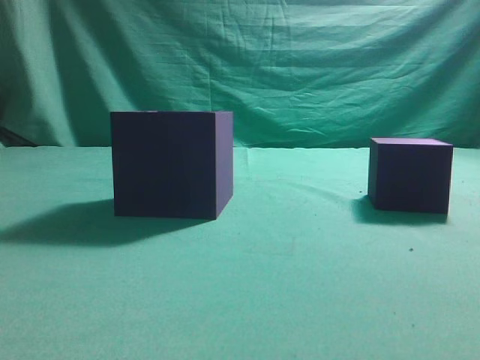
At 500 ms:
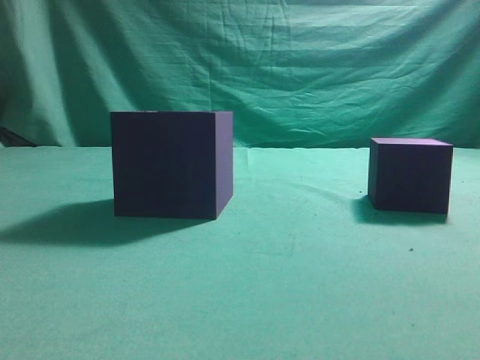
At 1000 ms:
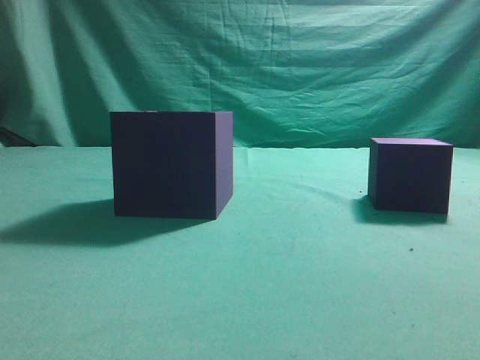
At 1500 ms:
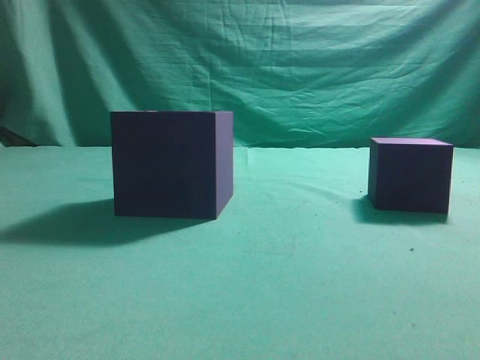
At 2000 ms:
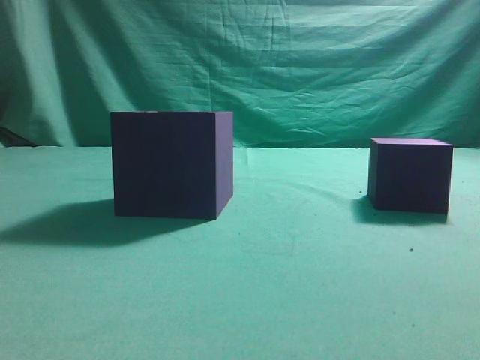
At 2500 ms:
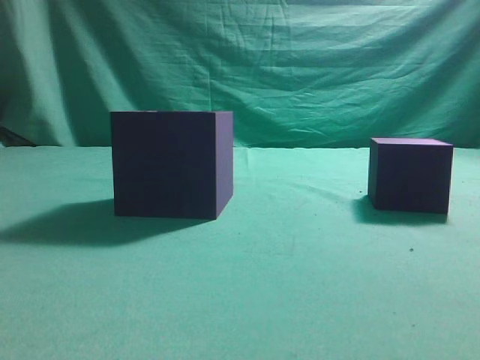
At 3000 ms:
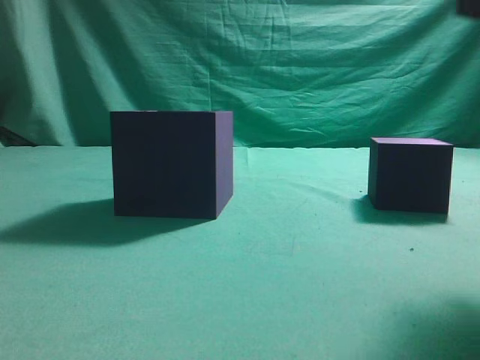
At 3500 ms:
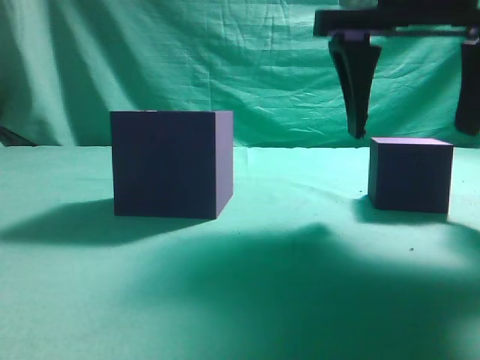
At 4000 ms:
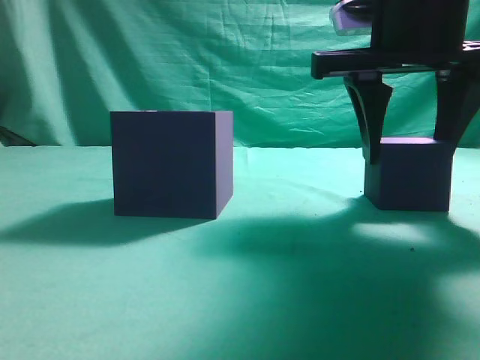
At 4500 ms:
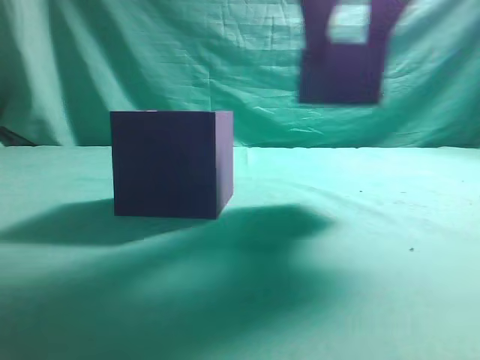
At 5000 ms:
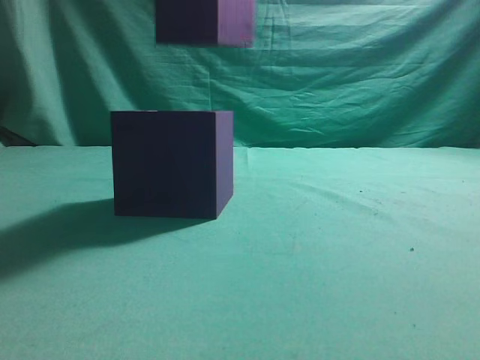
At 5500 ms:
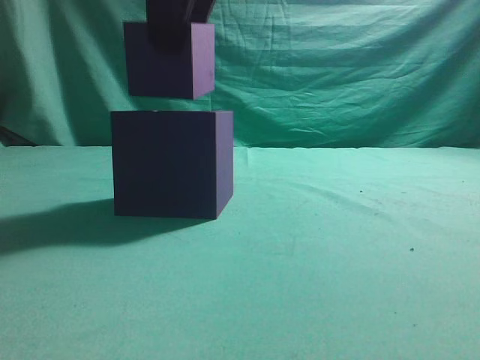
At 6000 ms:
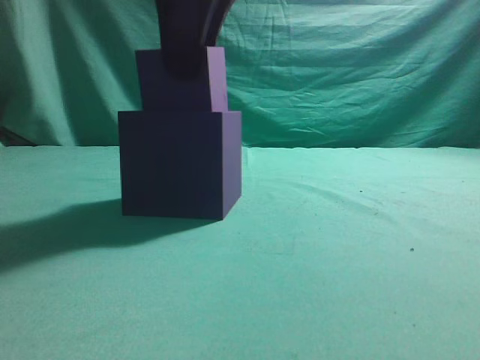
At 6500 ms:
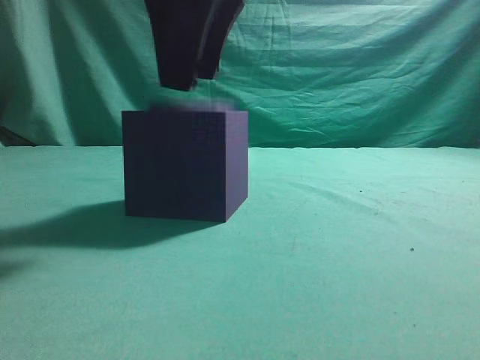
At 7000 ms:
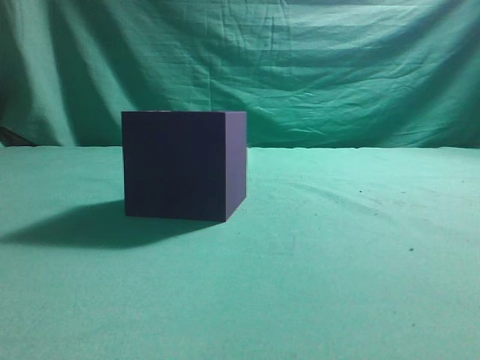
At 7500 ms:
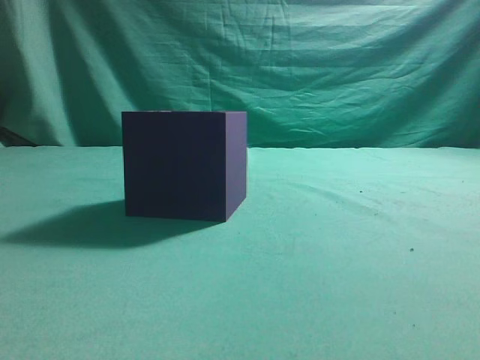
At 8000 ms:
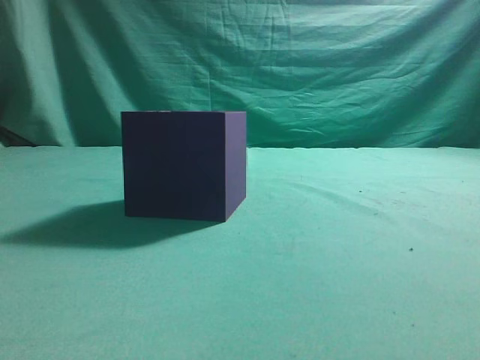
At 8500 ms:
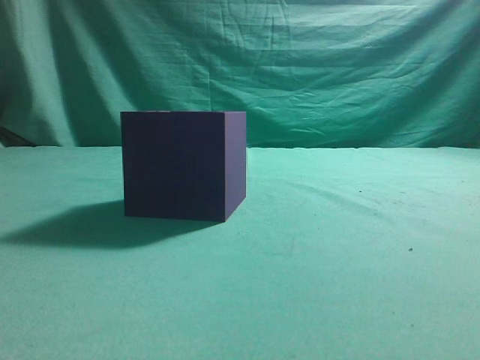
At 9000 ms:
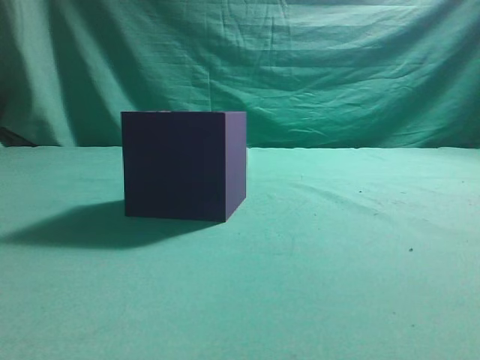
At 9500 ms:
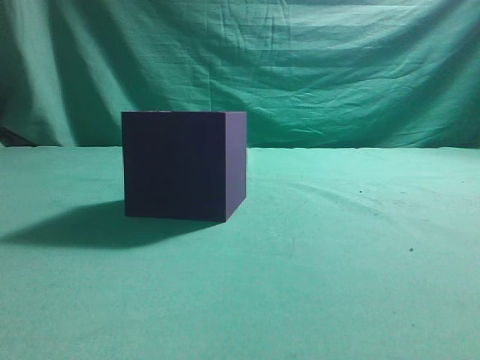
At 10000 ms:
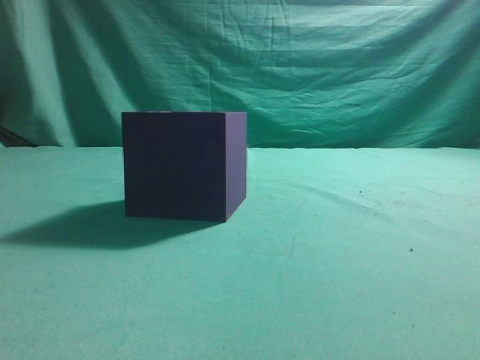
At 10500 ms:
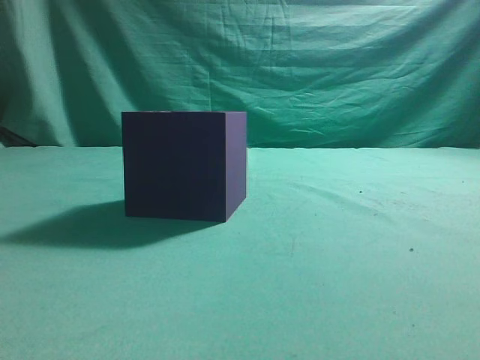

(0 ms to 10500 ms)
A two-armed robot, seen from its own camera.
Task of the whole recording: pick up the cube block and place it into the cube groove.
Step, 0 ms - 4000 ms: Grasp the cube.
Step, 4500 ms - 6500 ms: Place cube into the cube-shaped recess.
2000 ms - 4000 ms: The right gripper travels forward and to the left by about 25 cm, and opens its fingers.
4000 ms - 6500 ms: The right gripper heads to the left and upward, covering approximately 15 cm.
6500 ms - 8500 ms: The right gripper moves to the right and backward, some 35 cm, and closes up.
